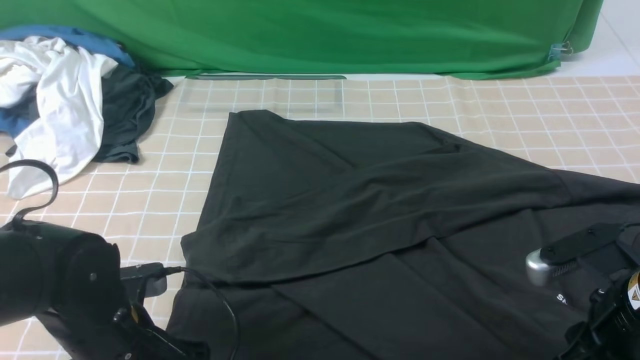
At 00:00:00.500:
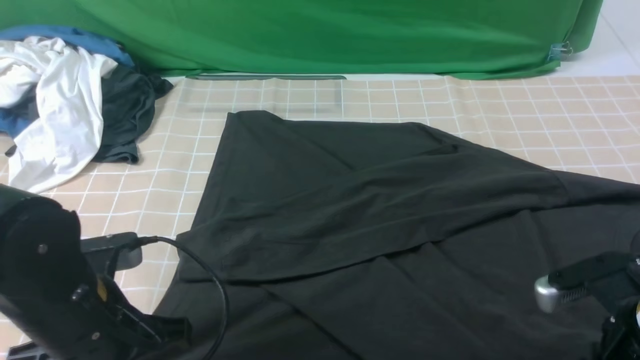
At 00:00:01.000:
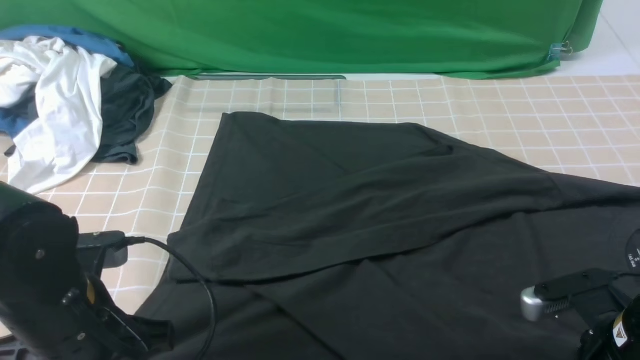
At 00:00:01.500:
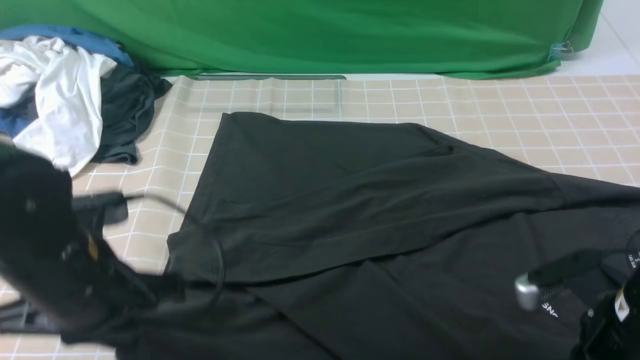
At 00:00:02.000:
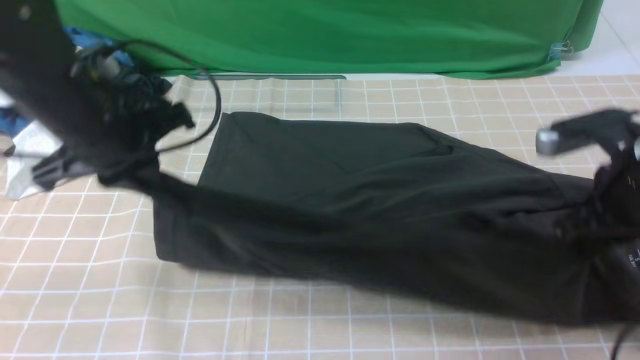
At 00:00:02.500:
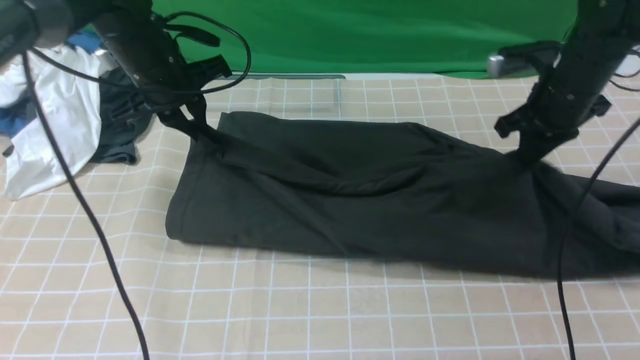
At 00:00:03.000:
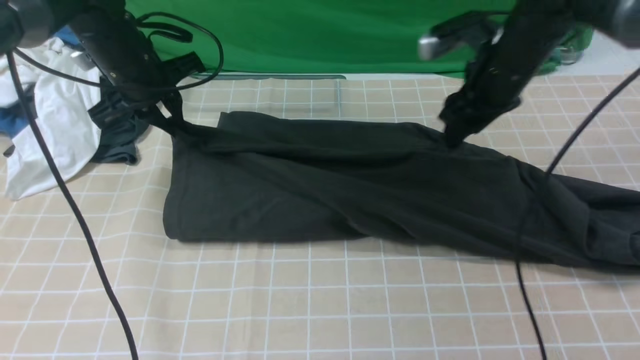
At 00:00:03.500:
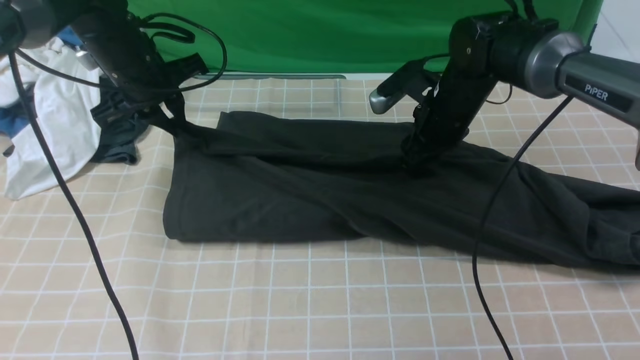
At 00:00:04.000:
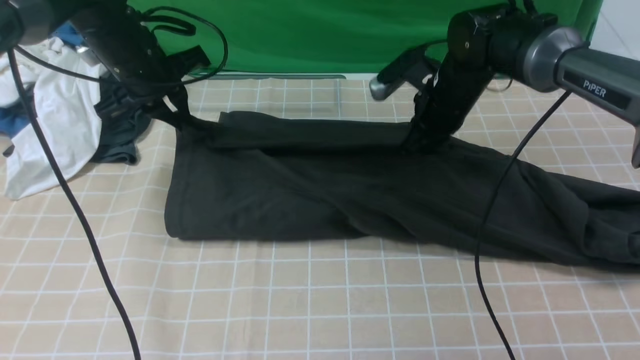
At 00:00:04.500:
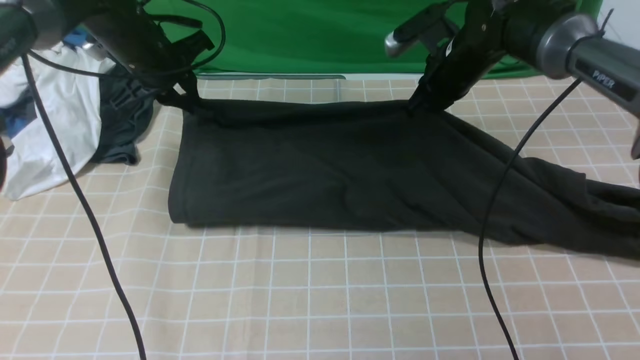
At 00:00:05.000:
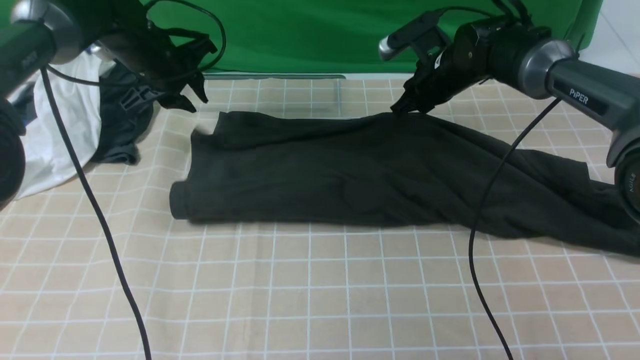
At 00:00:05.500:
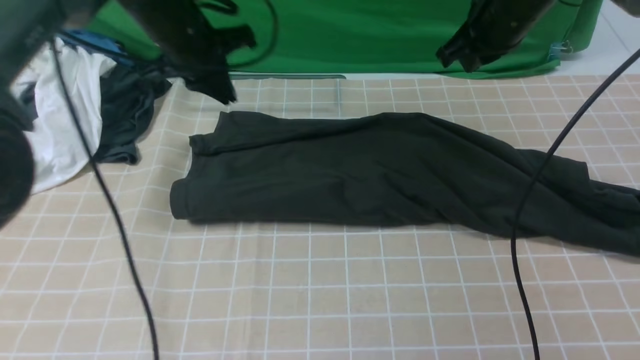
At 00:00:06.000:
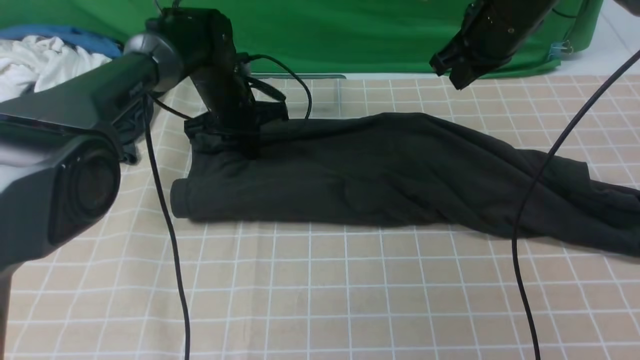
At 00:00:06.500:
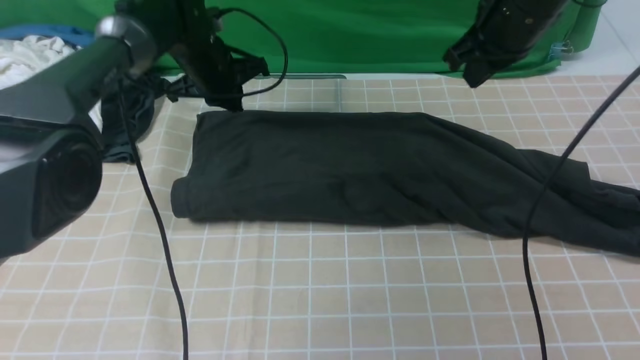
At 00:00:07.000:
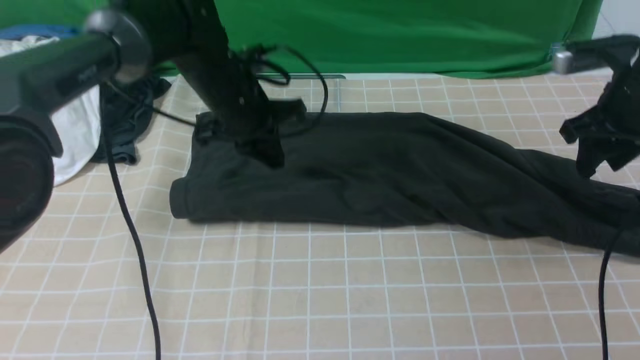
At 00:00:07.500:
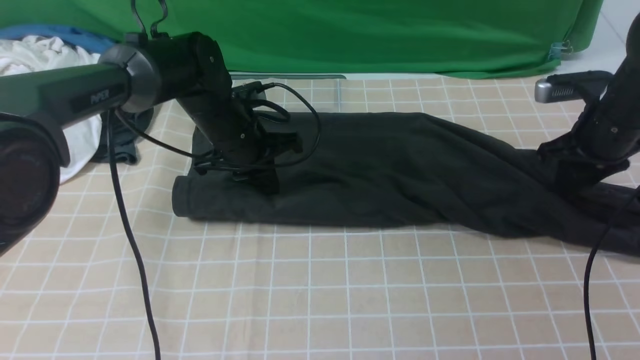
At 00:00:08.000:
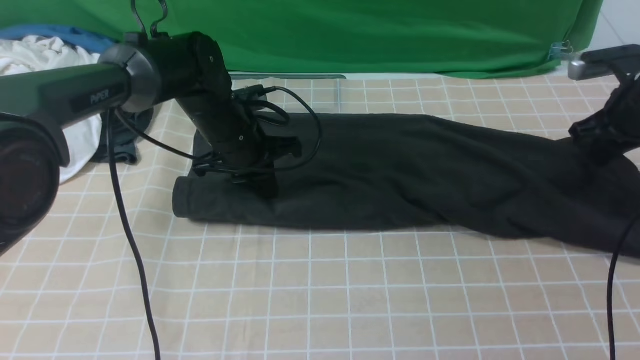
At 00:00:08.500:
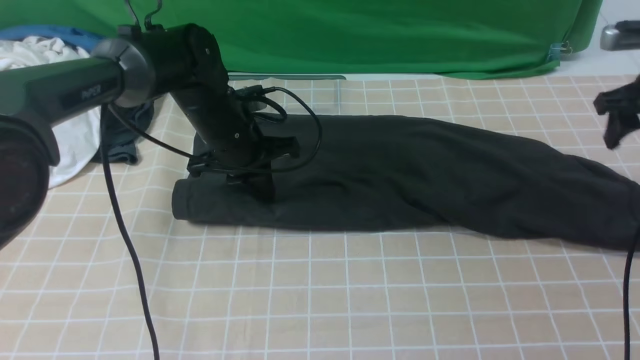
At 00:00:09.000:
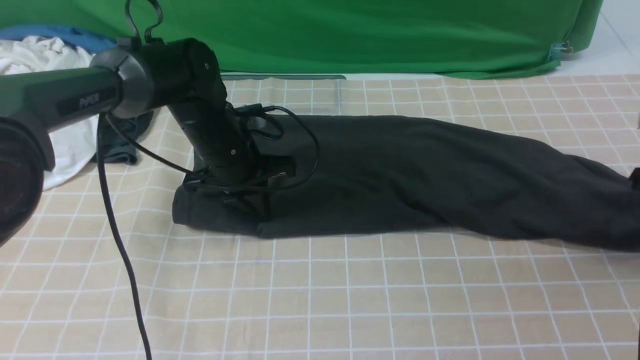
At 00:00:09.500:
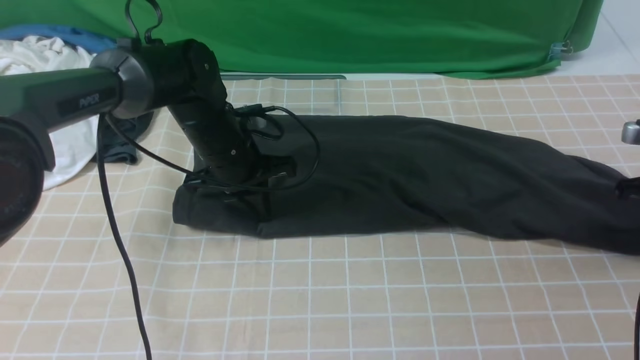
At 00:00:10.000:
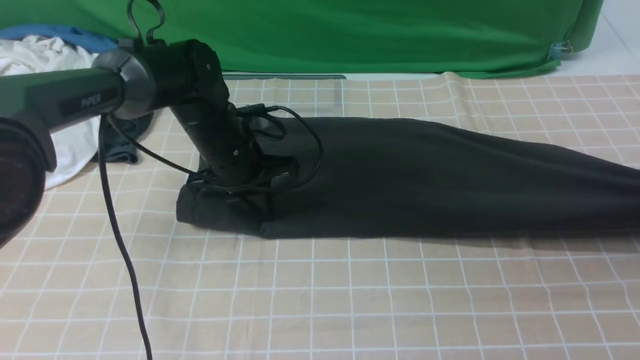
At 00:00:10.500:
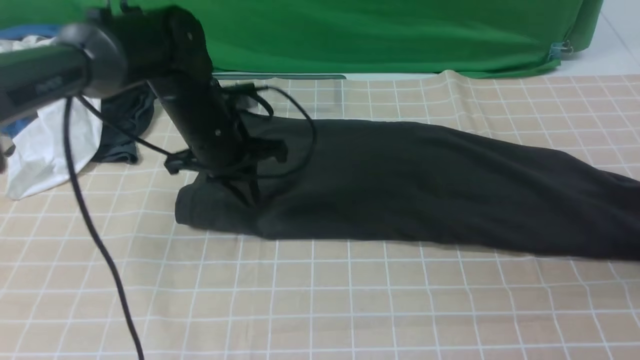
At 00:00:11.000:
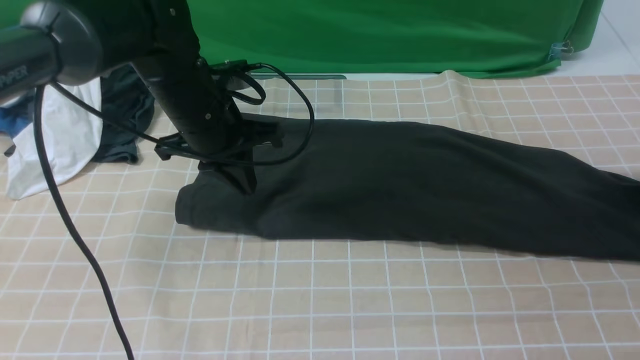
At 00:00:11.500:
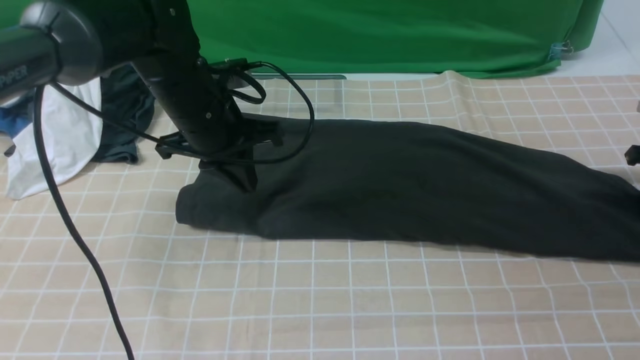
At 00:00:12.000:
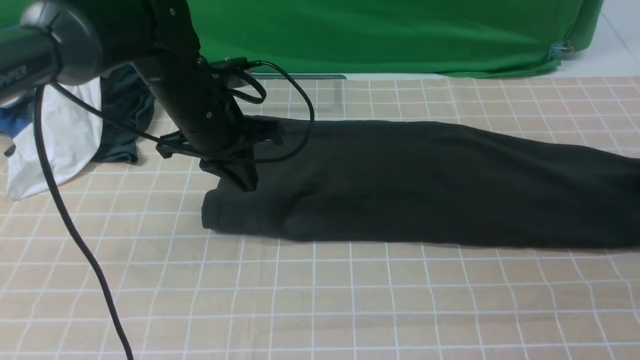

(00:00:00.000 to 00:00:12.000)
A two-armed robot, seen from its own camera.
Step, 00:00:01.500 - 00:00:05.000: use both arms to drag the lower edge of the fabric forward and fold it over the upper edge.
Step, 00:00:05.500 - 00:00:11.500: use the right arm to clamp the right edge of the fabric.
00:00:00.000 - 00:00:02.000: The right gripper travels forward and upward by roughly 10 cm, and closes its fingers. The left gripper heads upward and forward, covering some 20 cm, and closes up.
00:00:02.000 - 00:00:04.000: The right gripper heads forward and to the left, covering approximately 20 cm, and opens, then closes again, while the left gripper moves forward, approximately 15 cm.
00:00:04.000 - 00:00:06.000: The left gripper moves downward and to the right, some 10 cm, and opens, then closes again. Meanwhile the right gripper goes approximately 10 cm upward, and opens and closes again.
00:00:06.000 - 00:00:08.000: The right gripper is displaced to the right and downward by about 20 cm, and opens and closes again. Meanwhile the left gripper heads backward, covering approximately 10 cm.
00:00:08.000 - 00:00:10.000: The right gripper heads to the right and backward, covering approximately 10 cm, and opens and closes again.
00:00:10.000 - 00:00:12.000: The left gripper is displaced upward by some 10 cm; the right gripper shifts about 5 cm forward, and opens, then closes again.

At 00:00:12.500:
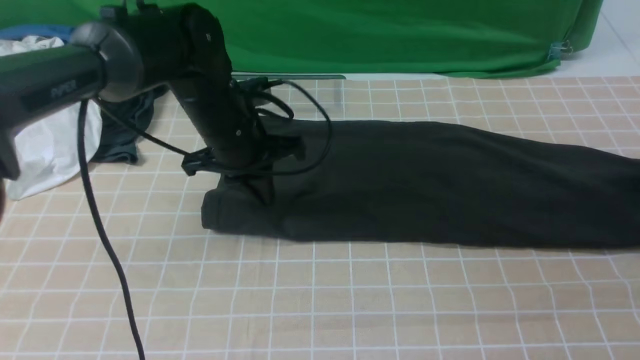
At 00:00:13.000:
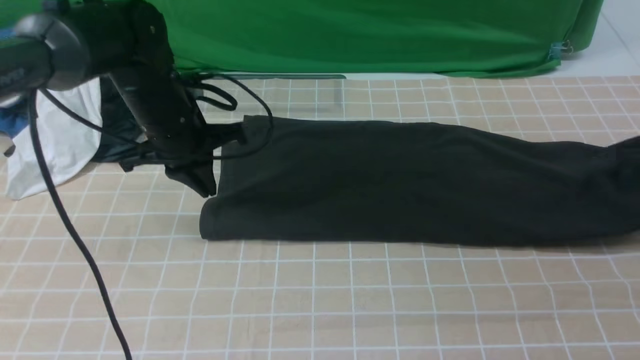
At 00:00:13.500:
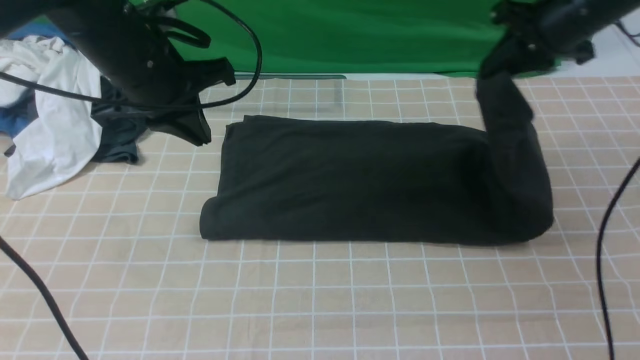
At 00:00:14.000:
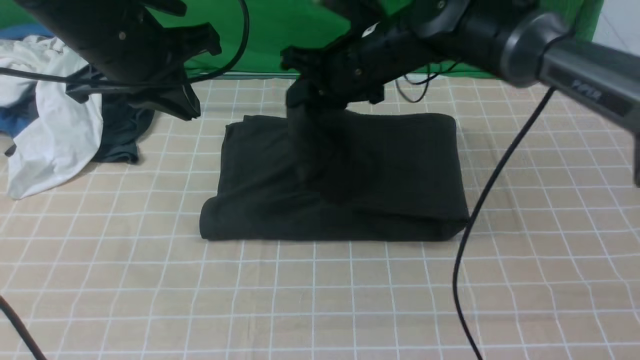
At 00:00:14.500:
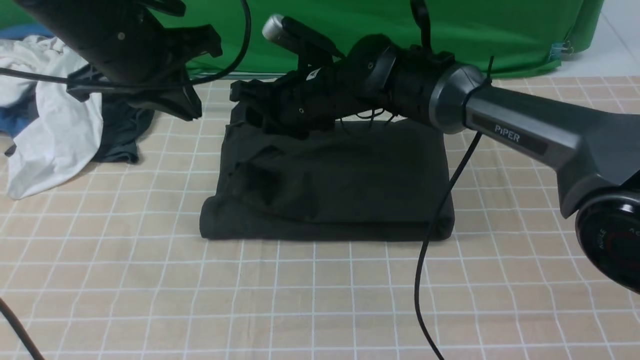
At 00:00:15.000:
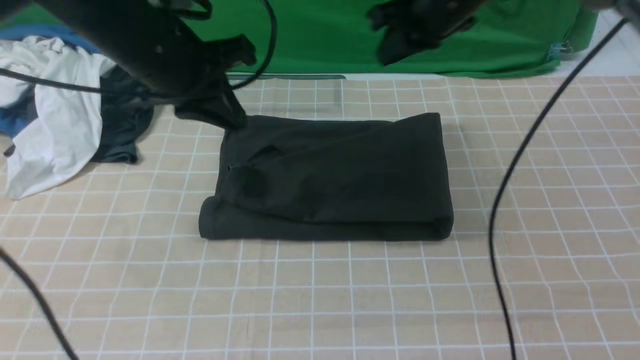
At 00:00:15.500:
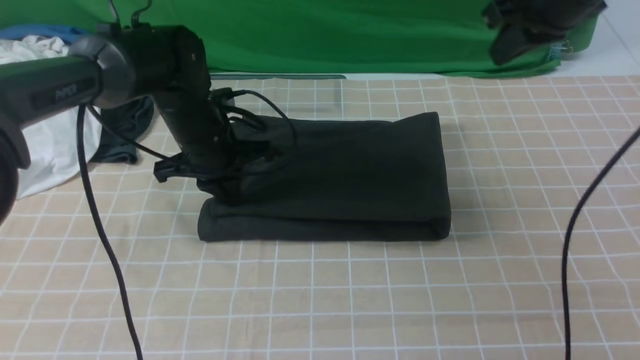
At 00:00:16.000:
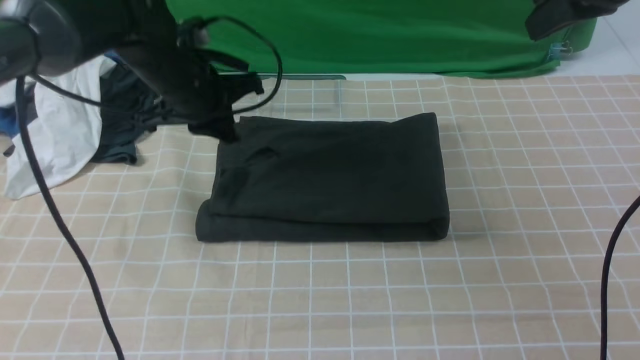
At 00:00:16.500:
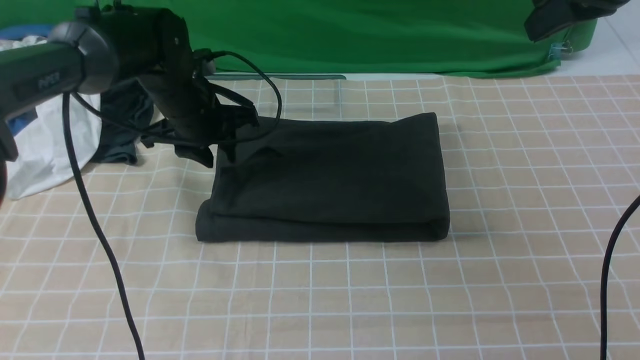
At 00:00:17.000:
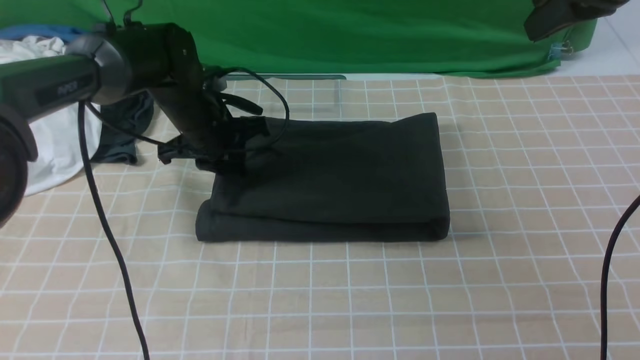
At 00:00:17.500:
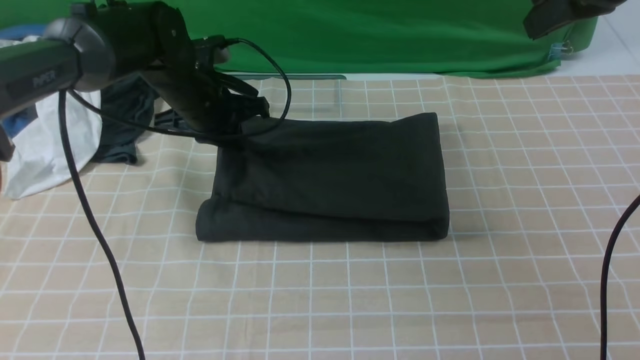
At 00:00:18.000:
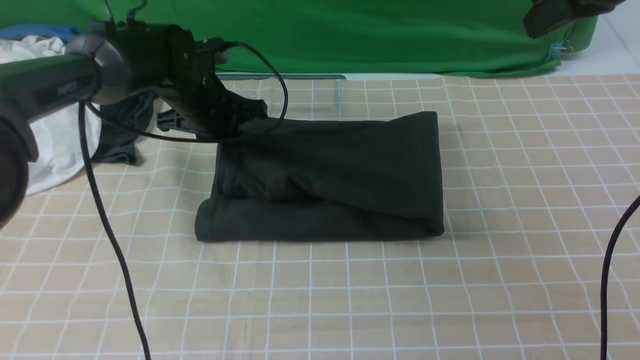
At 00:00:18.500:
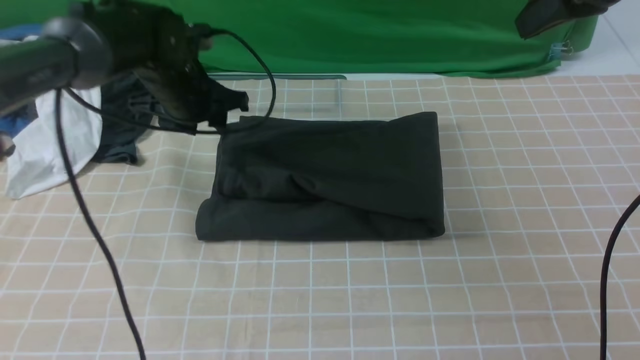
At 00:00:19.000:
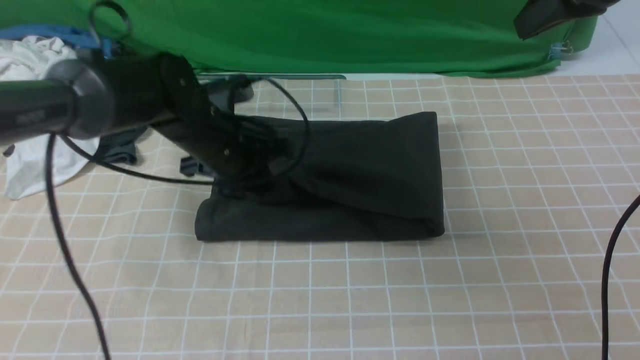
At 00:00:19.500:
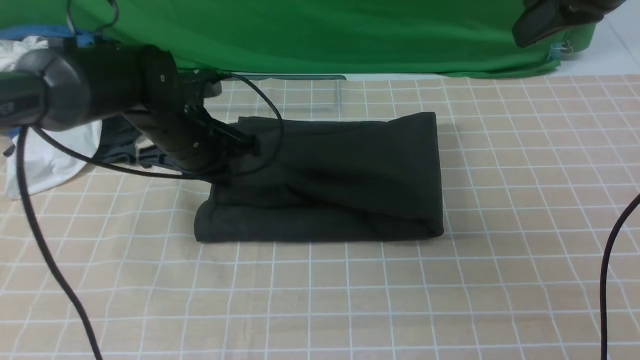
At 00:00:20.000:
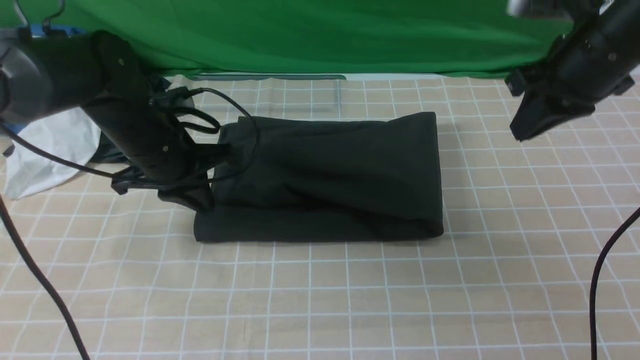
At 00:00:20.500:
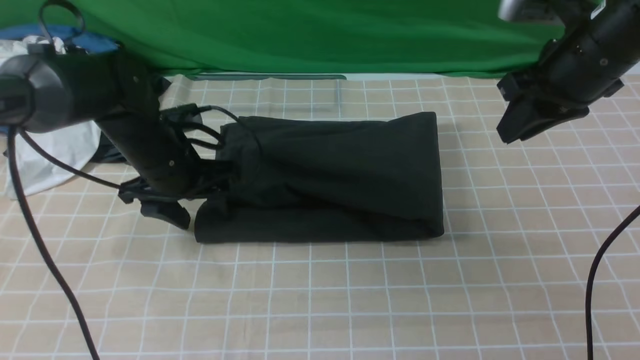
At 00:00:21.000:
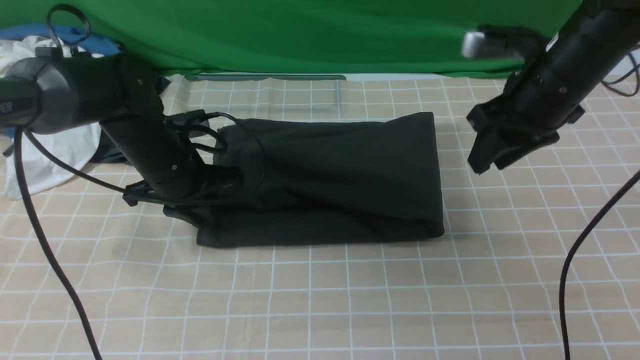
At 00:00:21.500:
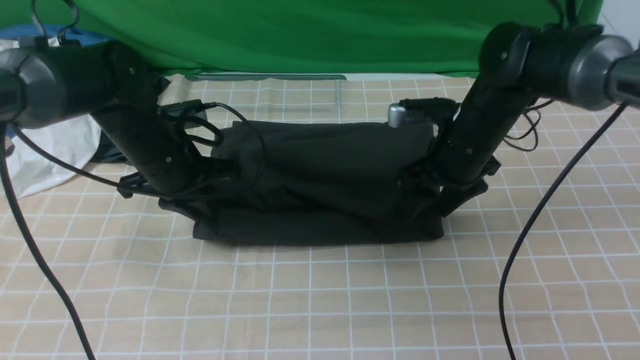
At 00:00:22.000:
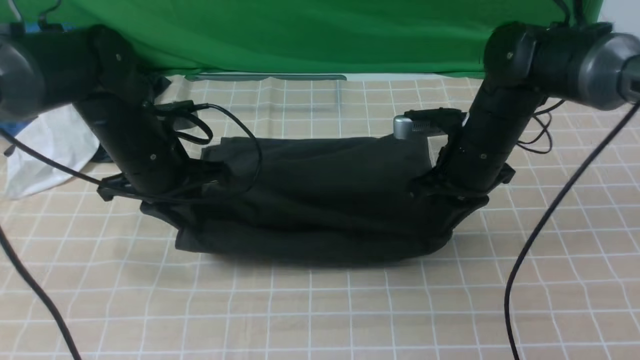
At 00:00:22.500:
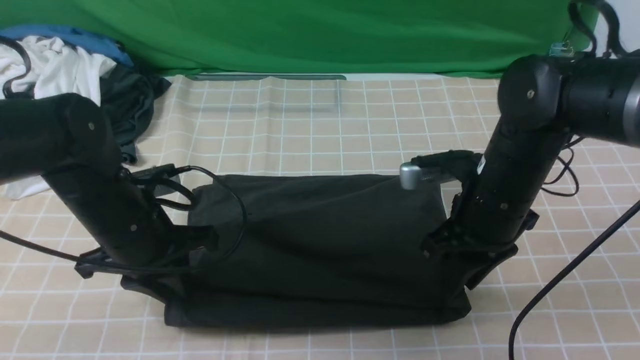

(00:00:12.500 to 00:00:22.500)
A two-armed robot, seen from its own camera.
Step, 00:00:12.500 - 00:00:14.500: use the right arm to drag the right edge of the fabric to the left and folds it over the left edge.
00:00:12.500 - 00:00:14.500: The left gripper travels upward by roughly 15 cm. The right gripper shifts about 50 cm to the left, and opens up.
00:00:14.500 - 00:00:16.500: The right gripper moves to the right and upward, about 30 cm, and closes up; the left gripper shifts about 15 cm downward and forward, and opens.
00:00:16.500 - 00:00:18.500: The left gripper closes, then reopens.
00:00:18.500 - 00:00:20.500: The right gripper travels downward by roughly 10 cm, and opens its fingers, while the left gripper is displaced backward and downward by approximately 10 cm, and opens.
00:00:20.500 - 00:00:22.500: The left gripper travels backward by about 10 cm, and closes, while the right gripper is displaced downward, to the left and backward by roughly 15 cm, and opens, then closes once more.
